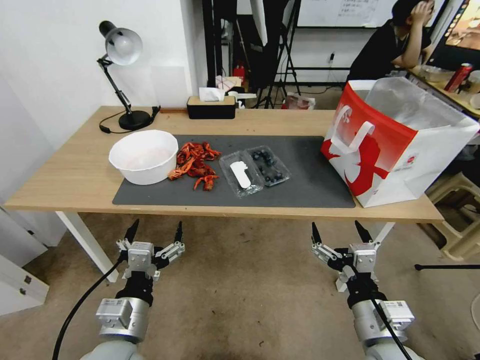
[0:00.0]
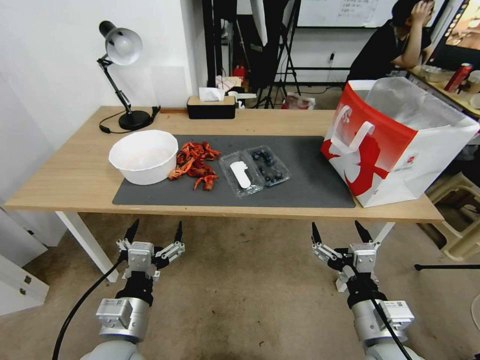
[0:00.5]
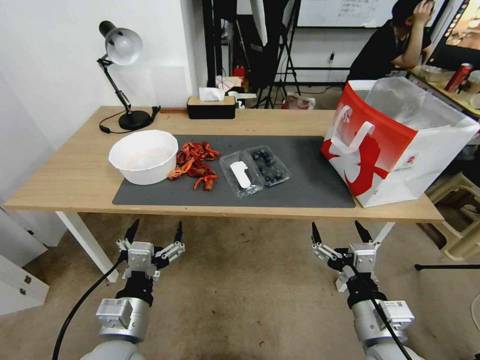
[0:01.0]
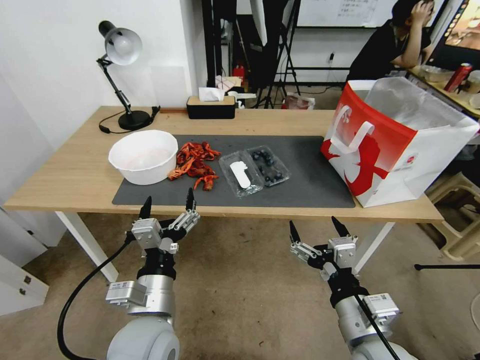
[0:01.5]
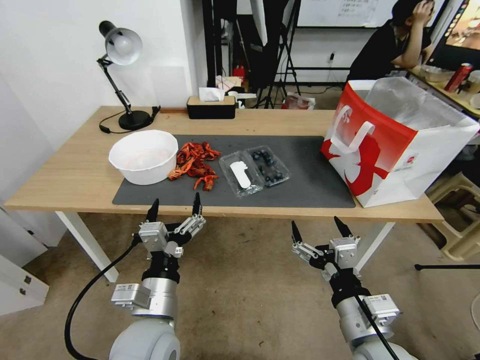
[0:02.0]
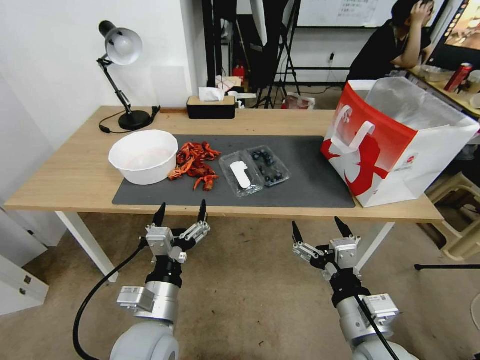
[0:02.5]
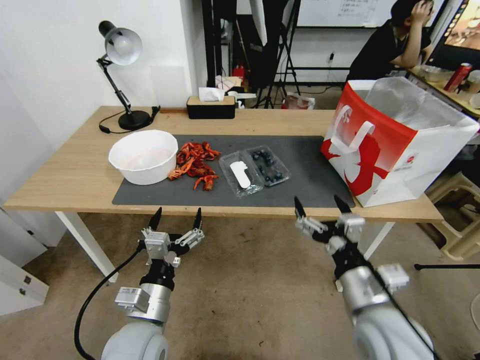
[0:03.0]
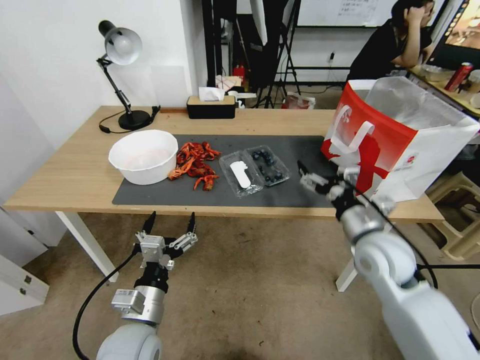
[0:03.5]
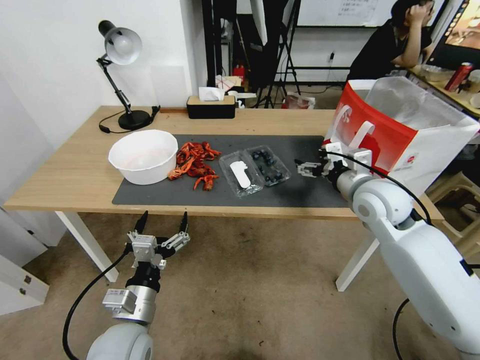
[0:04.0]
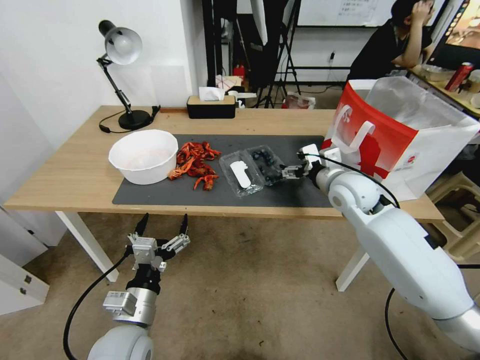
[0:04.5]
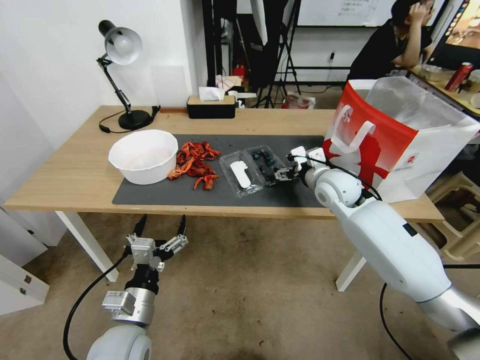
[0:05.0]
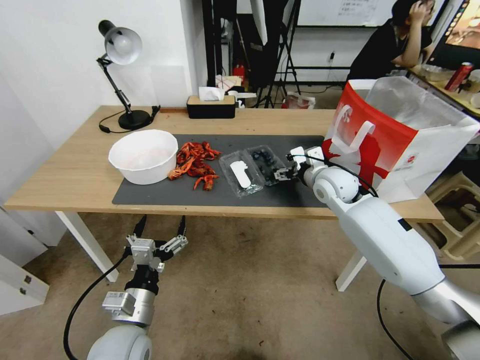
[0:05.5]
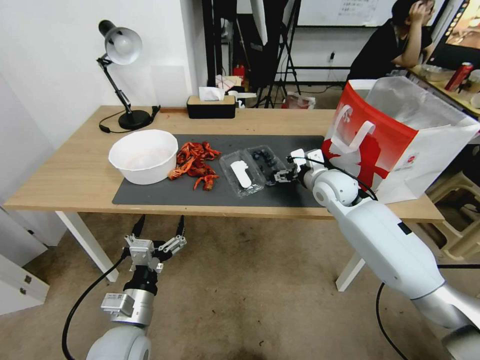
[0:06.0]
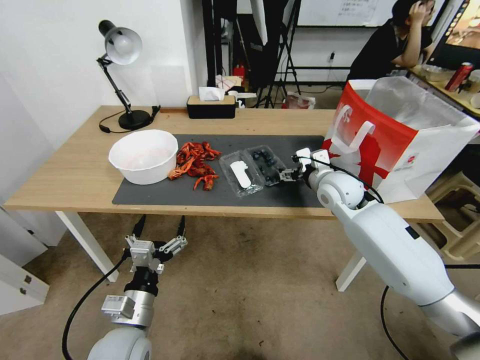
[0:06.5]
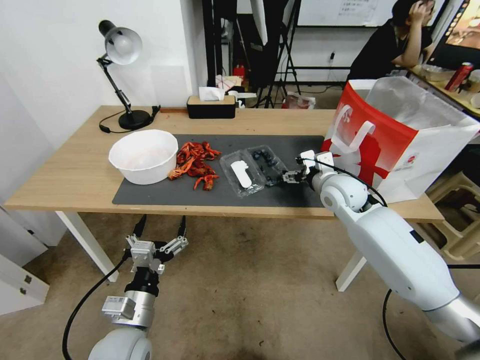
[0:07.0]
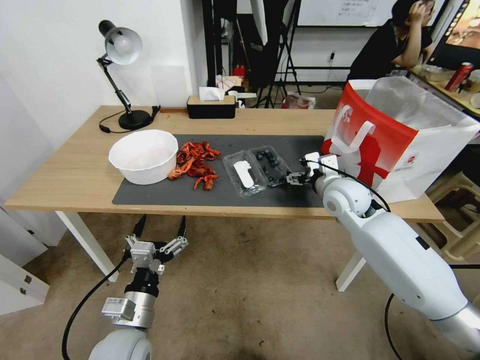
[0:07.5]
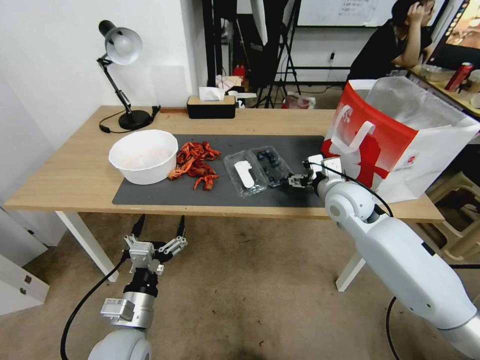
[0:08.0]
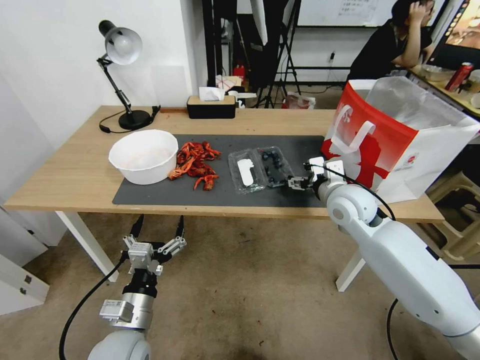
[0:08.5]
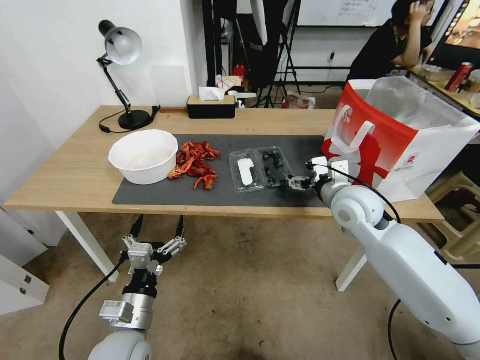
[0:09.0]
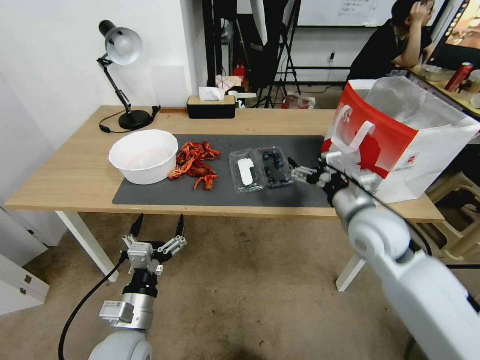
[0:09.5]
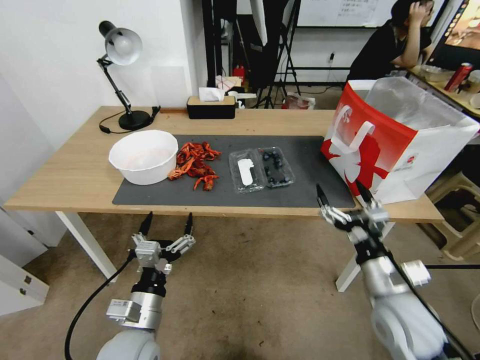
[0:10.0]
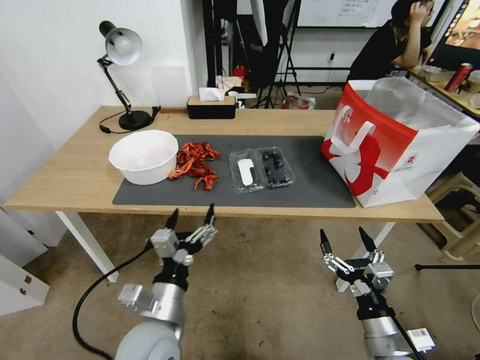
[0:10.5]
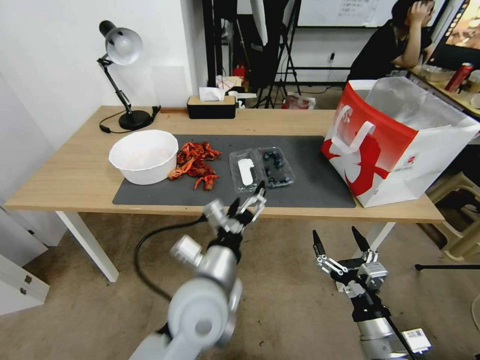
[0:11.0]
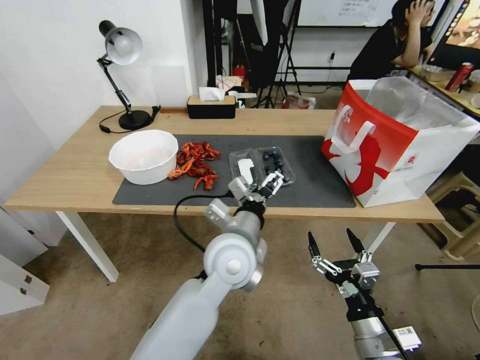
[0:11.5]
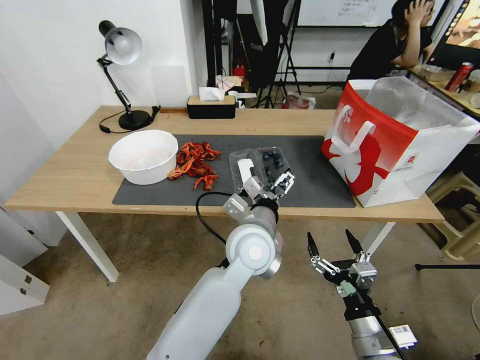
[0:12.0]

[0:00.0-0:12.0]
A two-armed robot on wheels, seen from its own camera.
Task of the whole recording: Close the takeout container lid, then place the container into the takeout bag.
0:02.0 to 0:04.0: The left gripper travels to the left and downward by approximately 10 cm, while the right gripper goes about 25 cm forward.
0:04.0 to 0:06.0: The right gripper goes about 10 cm forward and downward.
0:06.0 to 0:08.0: The right gripper heads backward, covering roughly 5 cm.
0:08.0 to 0:10.0: The right gripper goes some 20 cm backward.
0:10.0 to 0:12.0: The right gripper goes approximately 10 cm backward and downward. The left gripper shifts roughly 30 cm to the right, forward and upward.

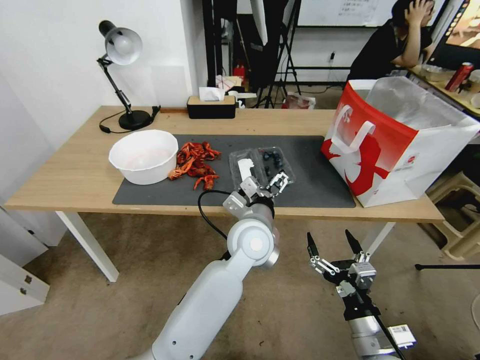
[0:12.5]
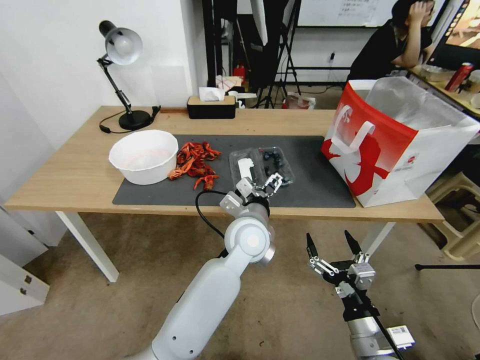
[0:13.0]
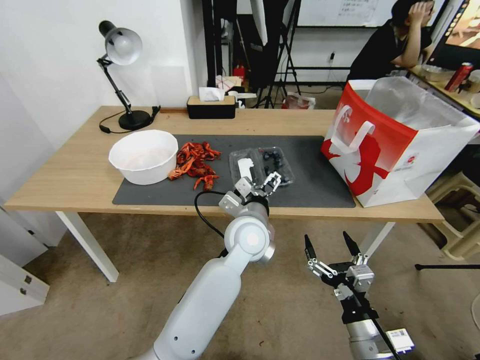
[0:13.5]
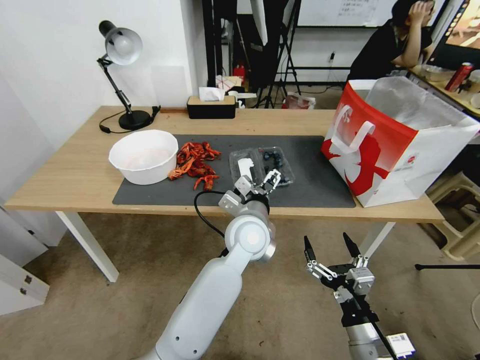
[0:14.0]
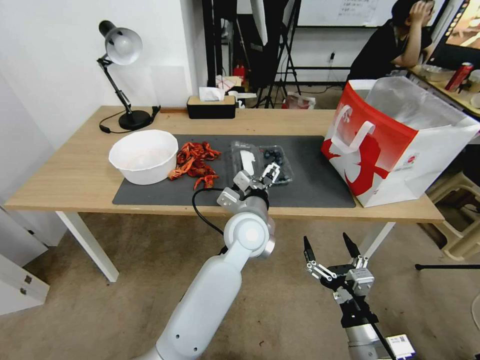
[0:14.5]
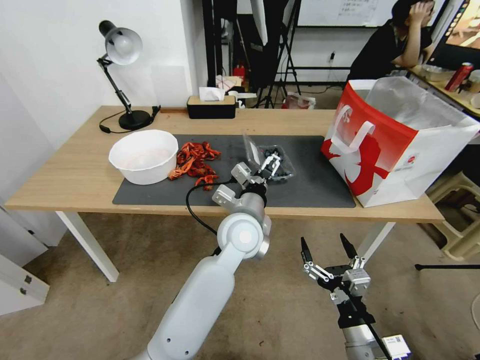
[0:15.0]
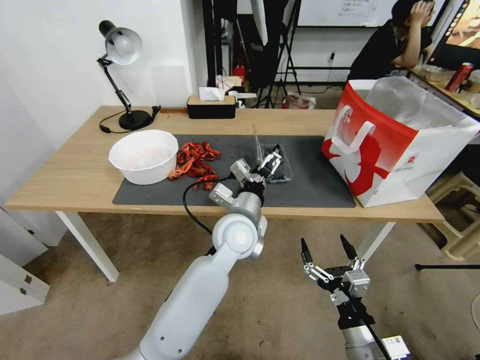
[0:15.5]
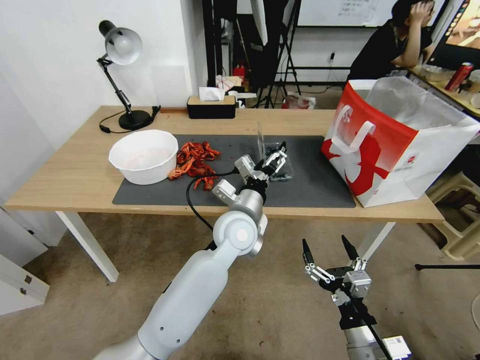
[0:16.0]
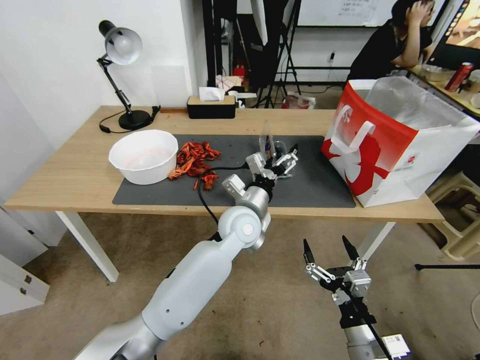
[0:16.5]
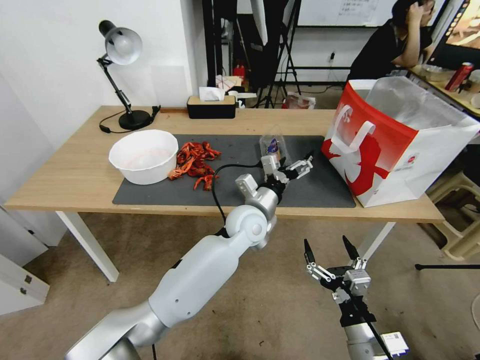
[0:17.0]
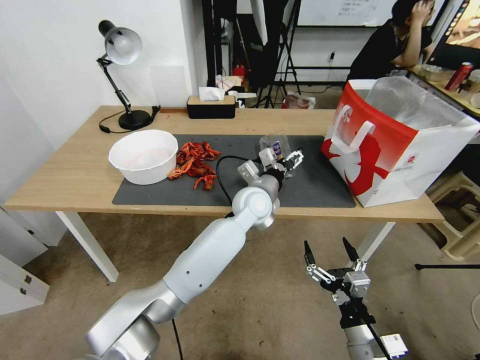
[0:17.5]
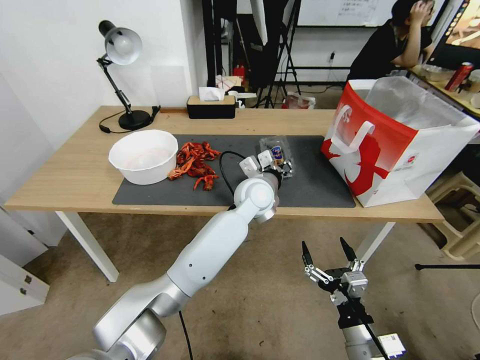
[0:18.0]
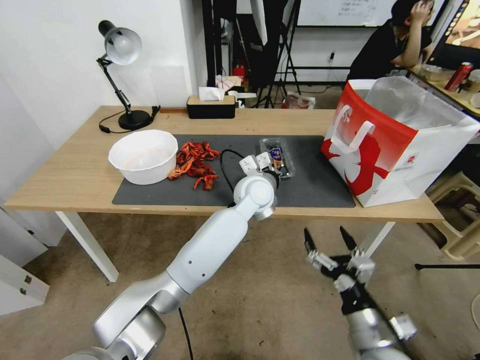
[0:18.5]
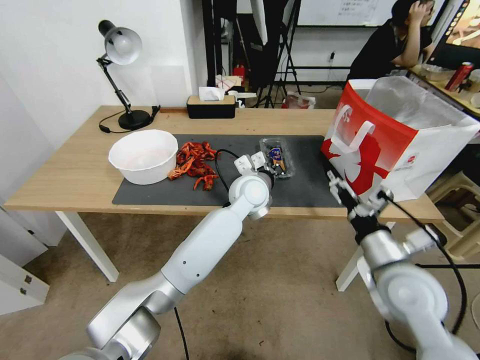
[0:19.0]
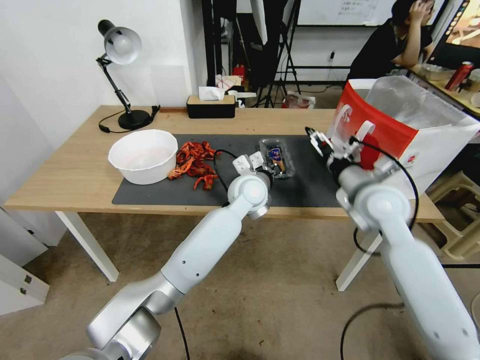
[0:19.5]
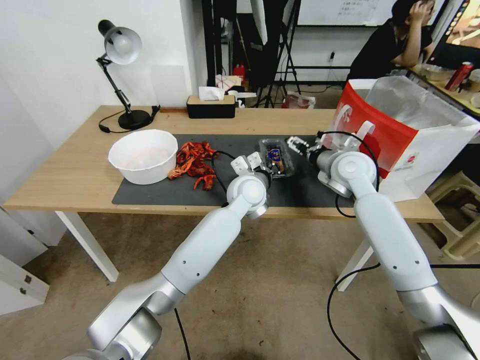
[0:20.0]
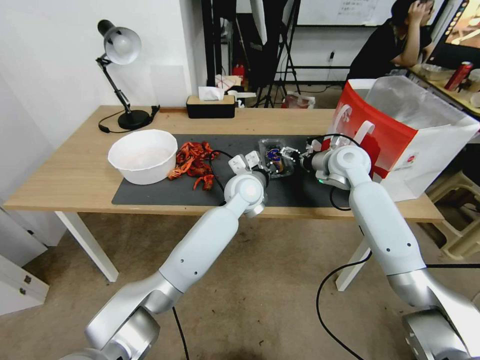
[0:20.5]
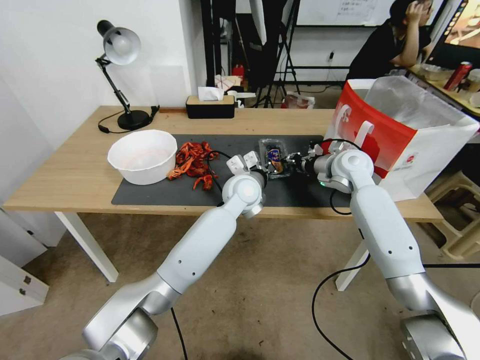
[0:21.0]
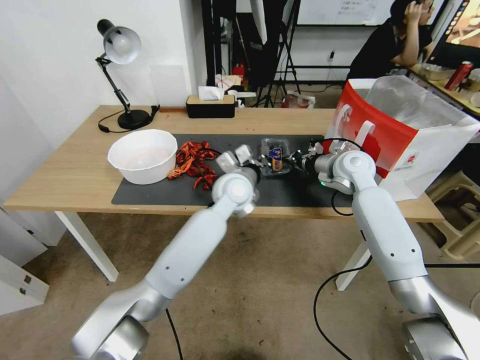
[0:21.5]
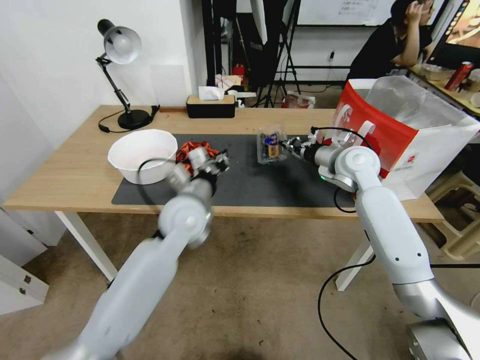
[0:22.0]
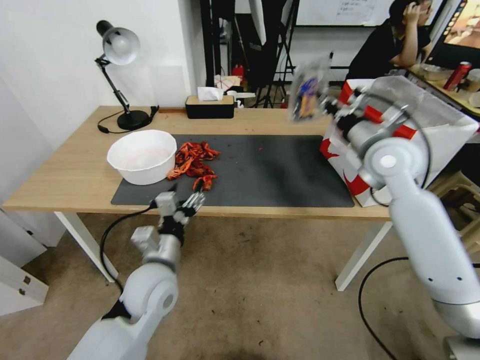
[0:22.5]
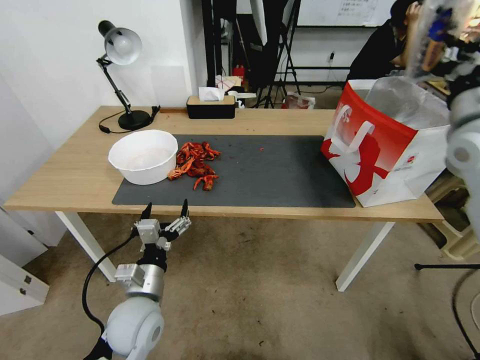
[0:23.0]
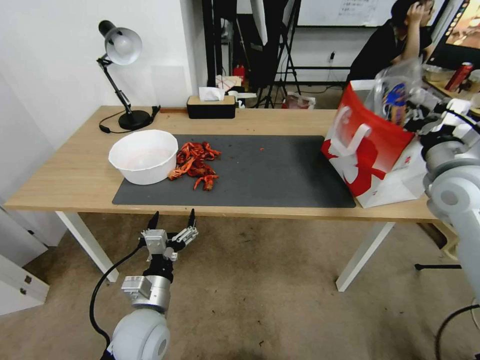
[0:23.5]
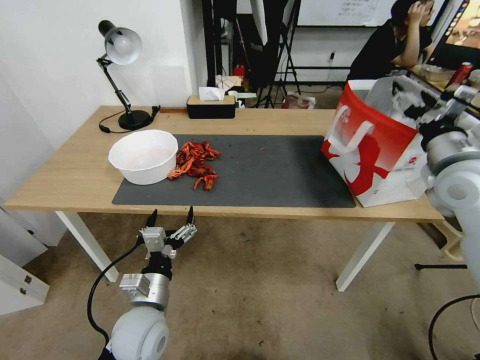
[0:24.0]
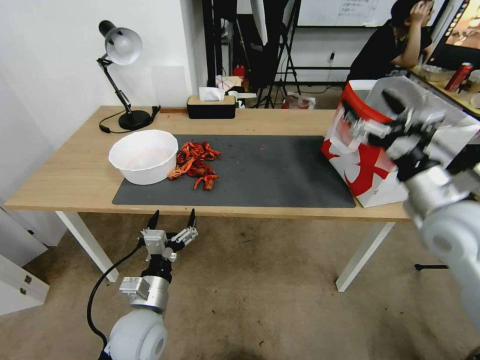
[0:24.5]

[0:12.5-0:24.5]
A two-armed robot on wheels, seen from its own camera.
Task of the whole recording: Close the takeout container lid, then place the container into the takeout bag.
0:12.5 to 0:14.5: The grippers move only a little.
0:16.5 to 0:18.5: The left gripper is displaced forward by about 5 cm, and closes up.
0:18.5 to 0:20.5: The right gripper shifts some 40 cm forward and upward.
0:20.5 to 0:22.5: The right gripper goes about 10 cm backward and upward, and closes its fingers. Meanwhile the left gripper shifts about 25 cm backward and to the left, and opens up.
0:22.5 to 0:24.5: The right gripper is displaced backward by about 15 cm, and opens. Meanwhile the left gripper moves downward and backward, approximately 10 cm.

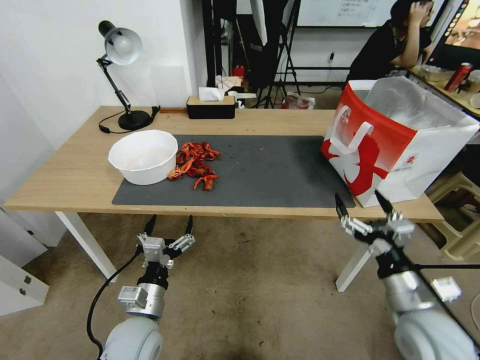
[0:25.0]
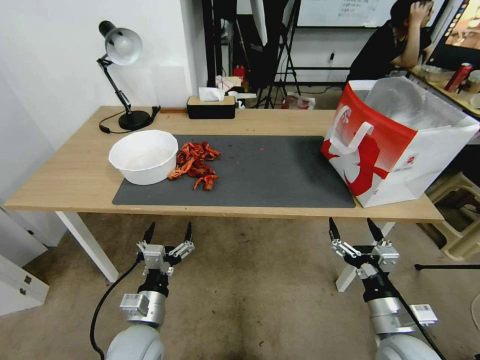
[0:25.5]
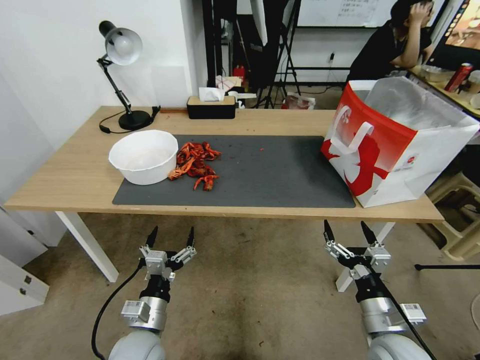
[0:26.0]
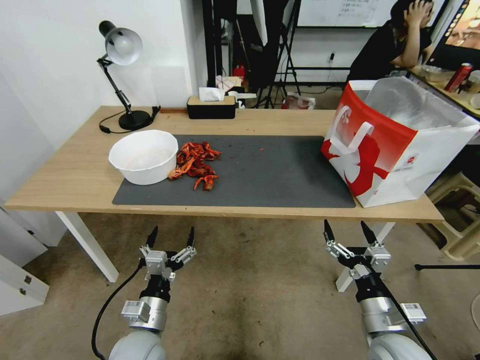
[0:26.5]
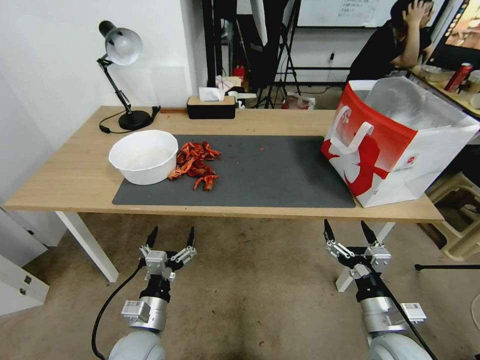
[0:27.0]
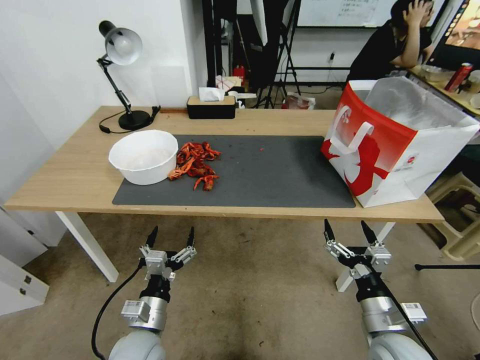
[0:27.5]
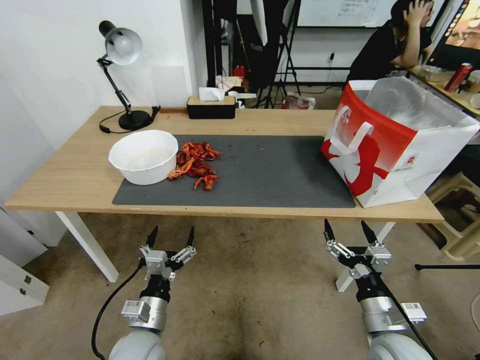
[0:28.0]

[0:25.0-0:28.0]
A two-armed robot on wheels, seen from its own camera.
Task of the whole recording: Close the takeout container lid, then place the container into the takeout bag.
0:25.0 to 0:26.5: The right gripper travels downward by roughly 10 cm.
0:26.5 to 0:28.0: Neither gripper changes place.
